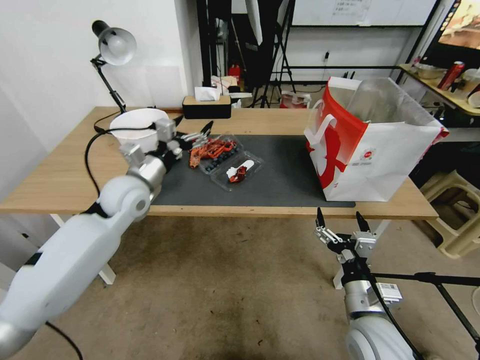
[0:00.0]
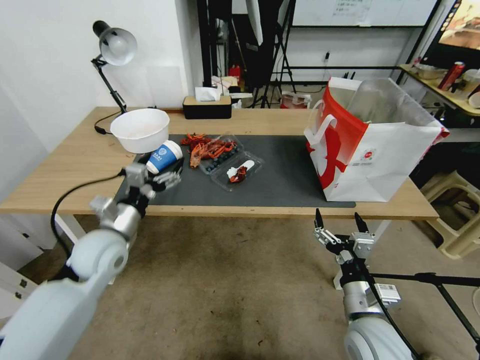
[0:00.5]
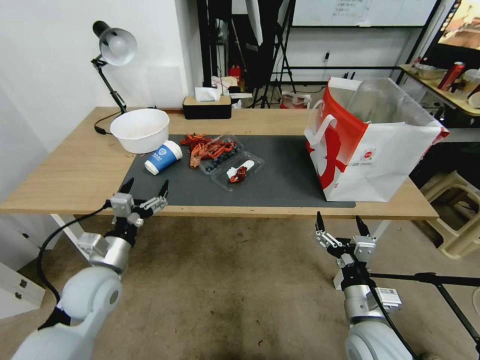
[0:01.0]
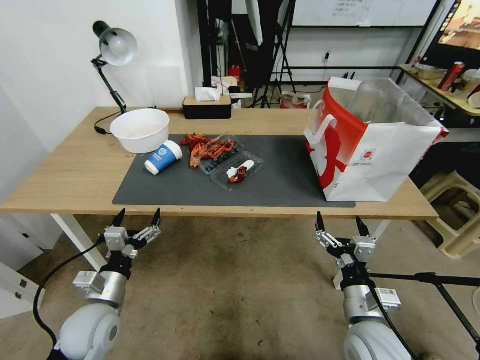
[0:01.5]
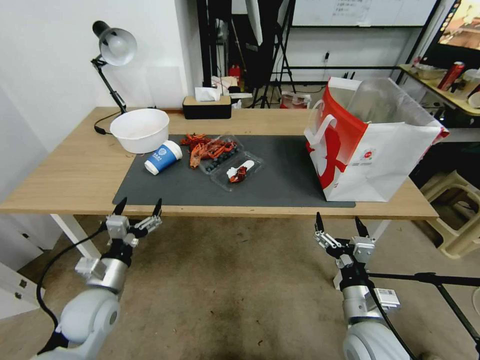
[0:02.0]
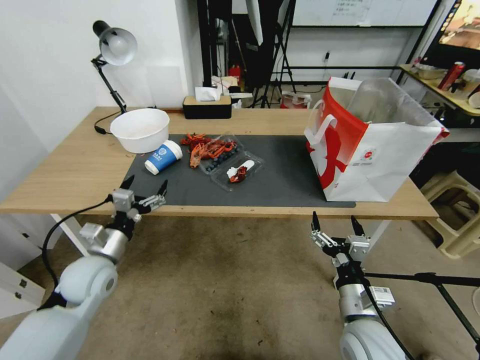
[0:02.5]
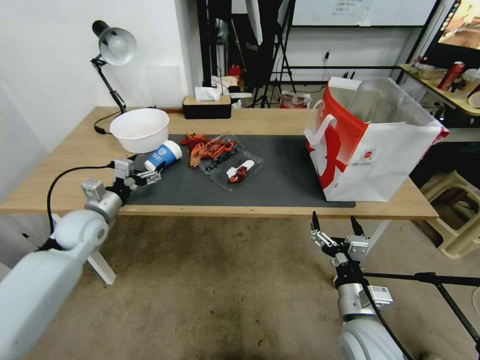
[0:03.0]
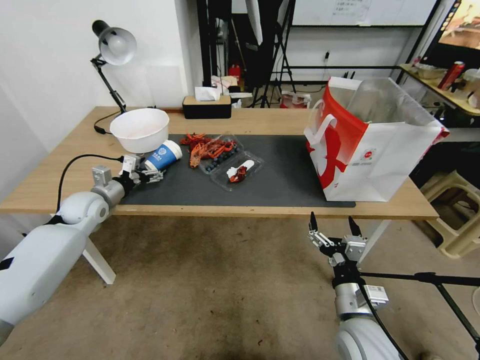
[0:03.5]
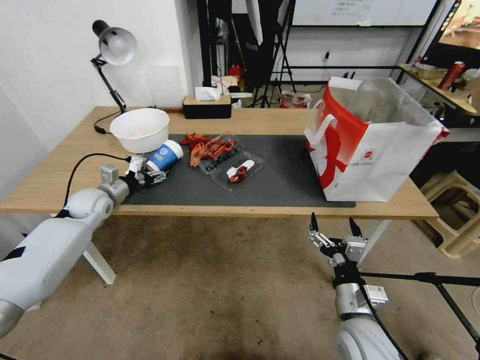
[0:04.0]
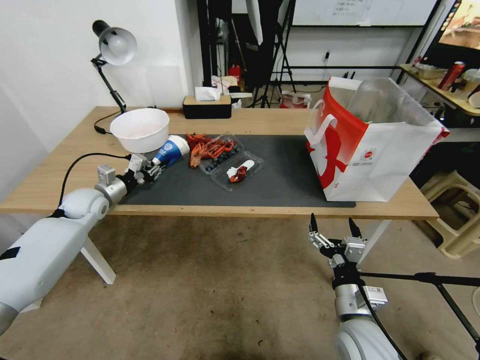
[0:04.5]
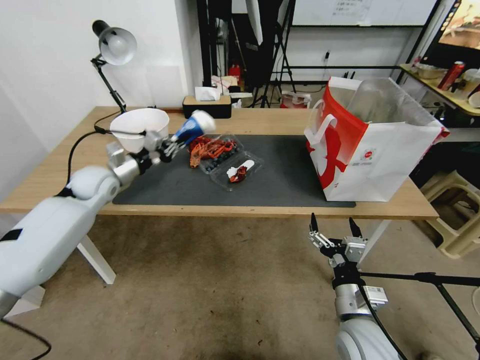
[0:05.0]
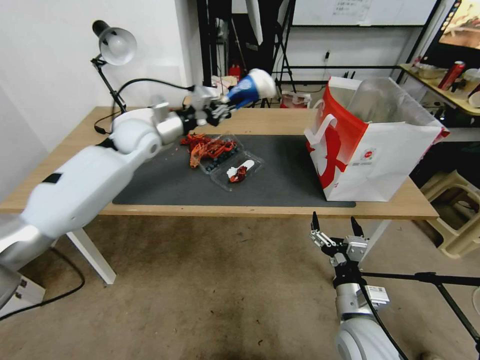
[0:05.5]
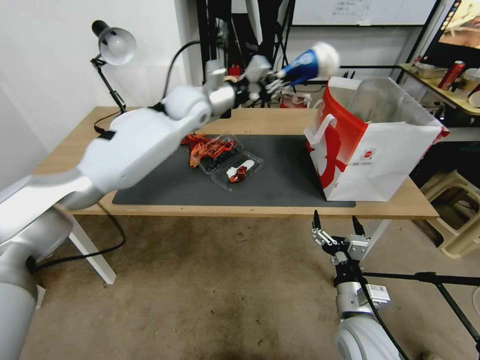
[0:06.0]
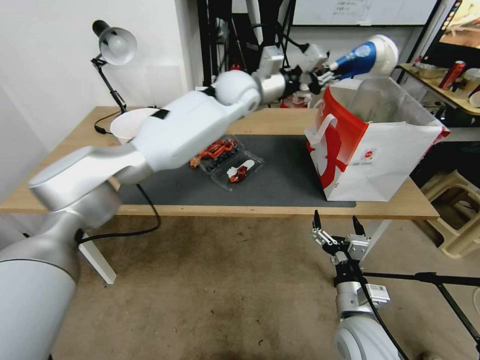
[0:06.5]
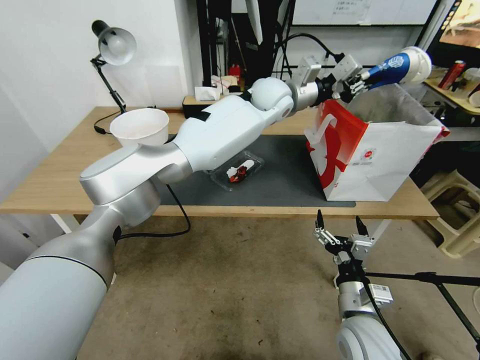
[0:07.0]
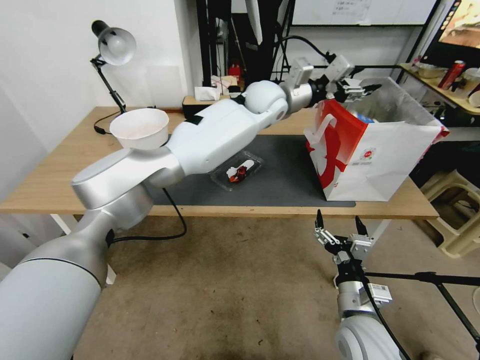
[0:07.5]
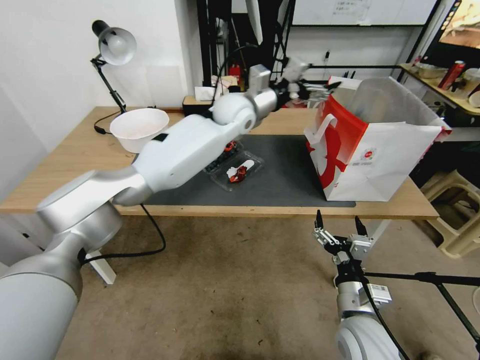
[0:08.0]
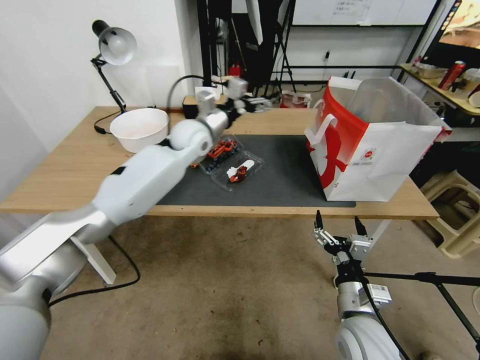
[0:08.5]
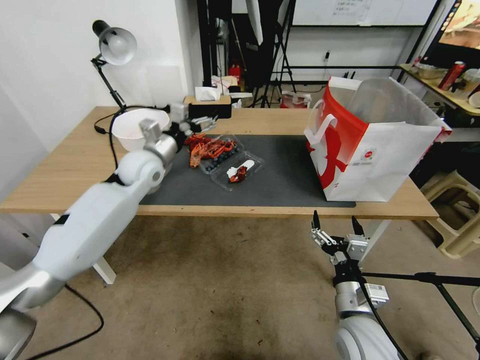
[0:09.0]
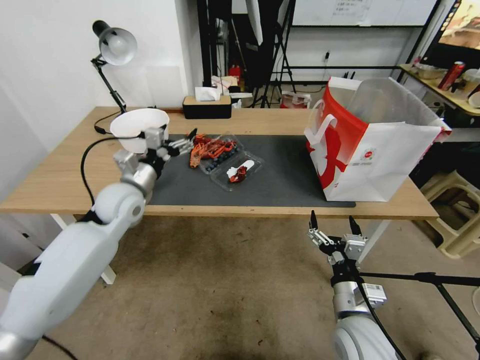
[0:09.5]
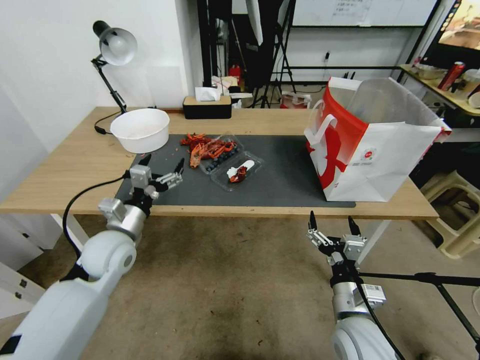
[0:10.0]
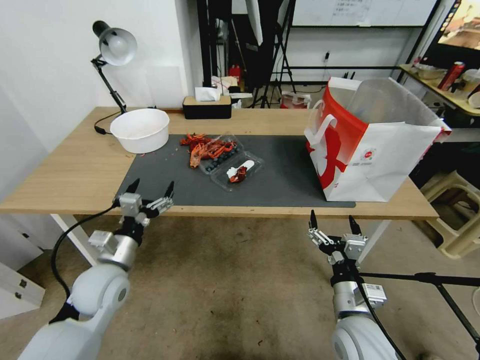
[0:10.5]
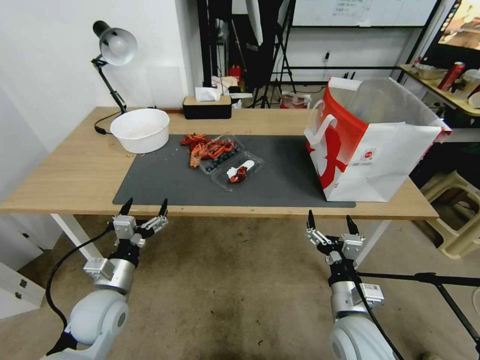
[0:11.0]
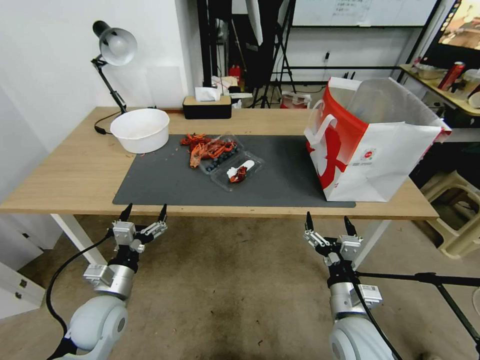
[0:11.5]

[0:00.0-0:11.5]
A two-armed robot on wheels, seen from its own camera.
0:00.0 to 0:02.0: The left gripper is displaced backward and downward by some 25 cm.
0:02.0 to 0:04.0: The left gripper is displaced forward by about 25 cm.
0:04.0 to 0:06.0: The left gripper is displaced to the right and upward by approximately 35 cm, and closes its fingers.
0:06.0 to 0:07.5: The left gripper moves to the right, some 15 cm, and opens.
0:07.5 to 0:09.5: The left gripper heads to the left, backward and downward, covering some 40 cm, and opens its fingers.
0:09.5 to 0:11.5: The left gripper heads backward and downward, covering roughly 25 cm.

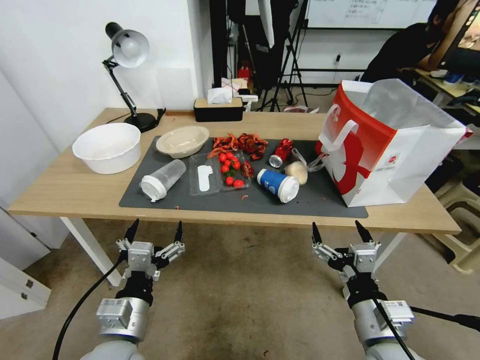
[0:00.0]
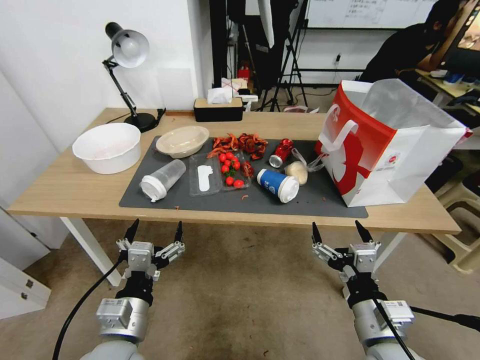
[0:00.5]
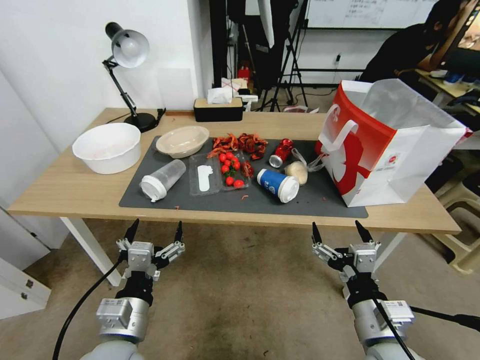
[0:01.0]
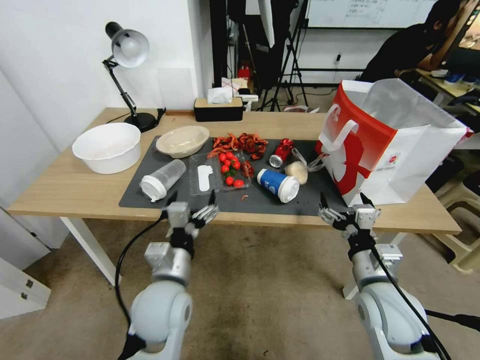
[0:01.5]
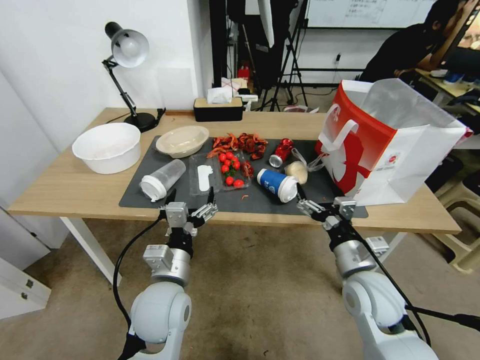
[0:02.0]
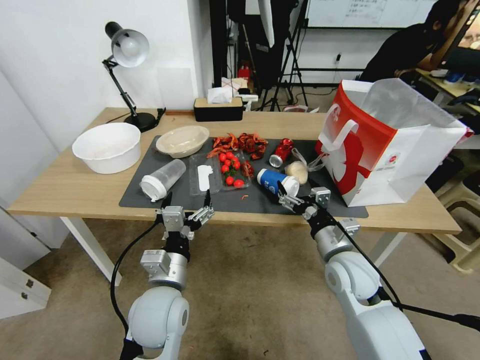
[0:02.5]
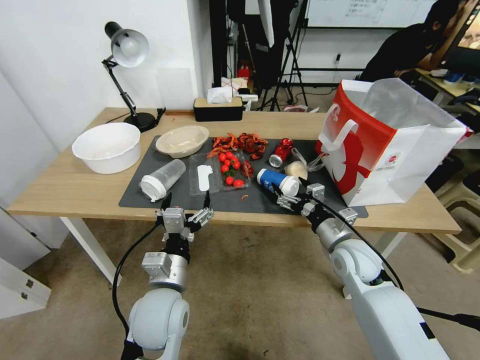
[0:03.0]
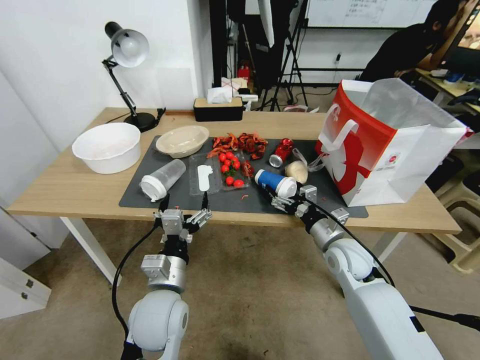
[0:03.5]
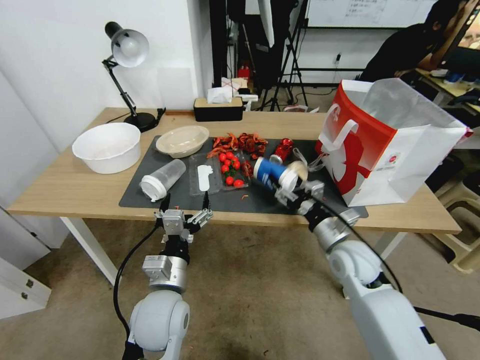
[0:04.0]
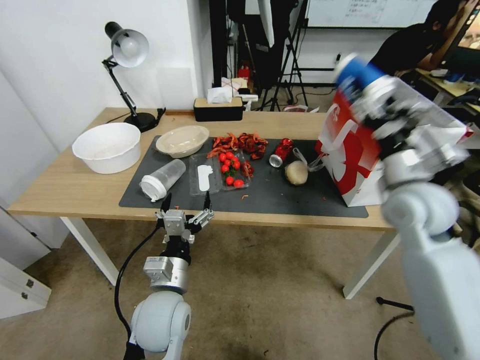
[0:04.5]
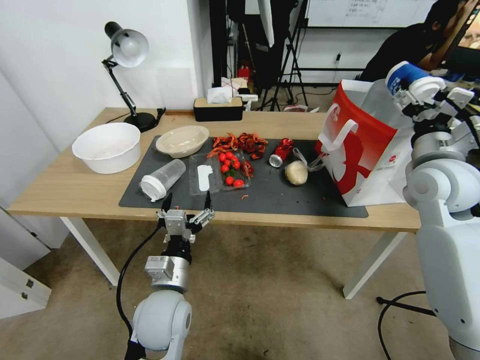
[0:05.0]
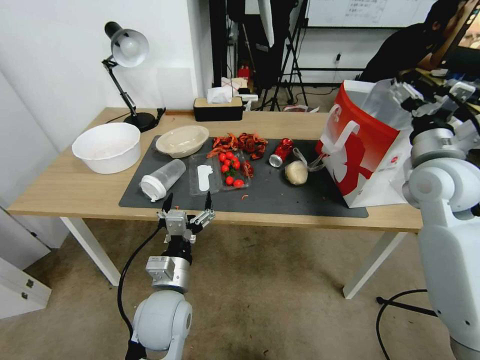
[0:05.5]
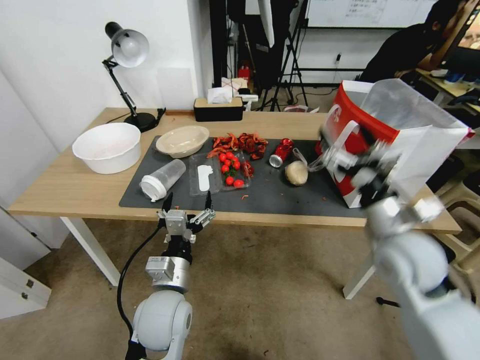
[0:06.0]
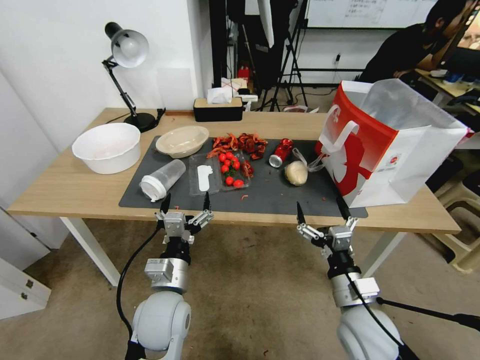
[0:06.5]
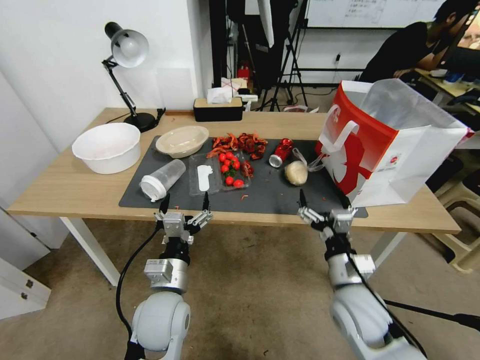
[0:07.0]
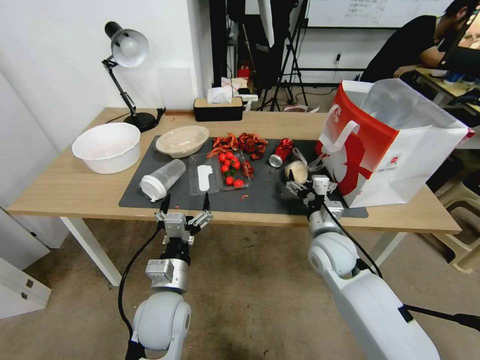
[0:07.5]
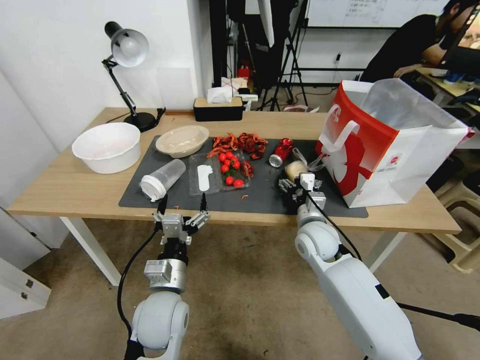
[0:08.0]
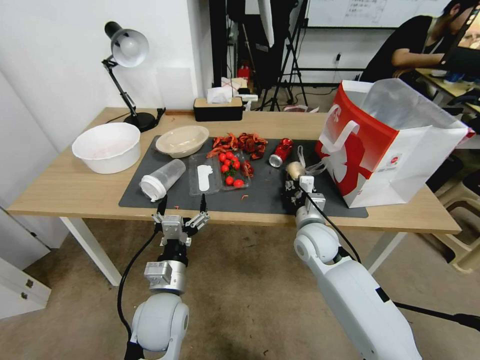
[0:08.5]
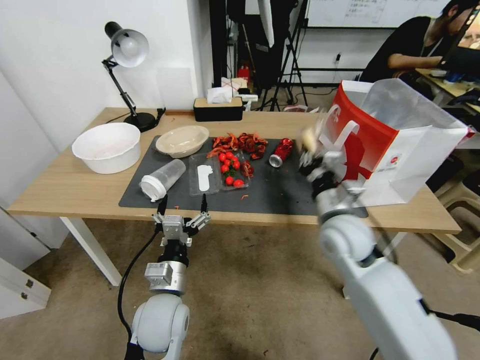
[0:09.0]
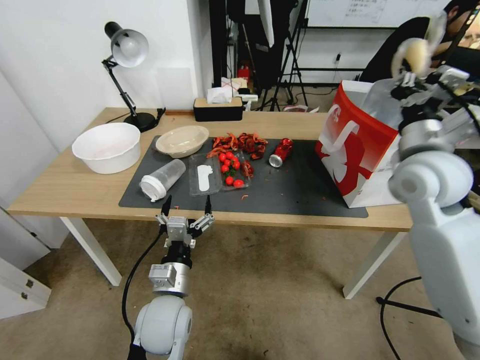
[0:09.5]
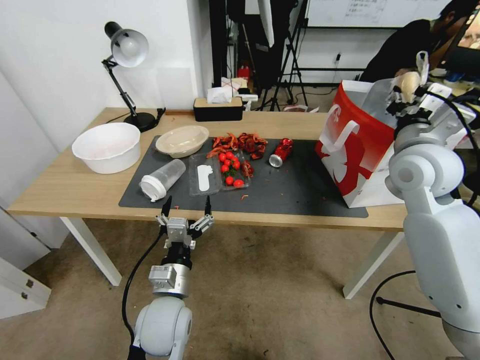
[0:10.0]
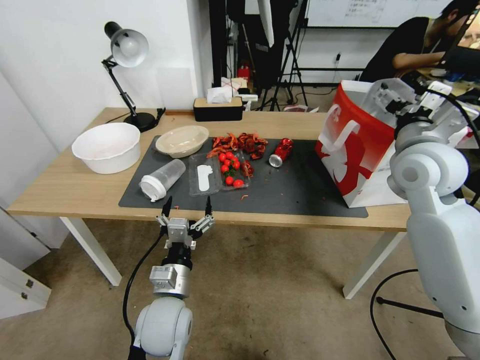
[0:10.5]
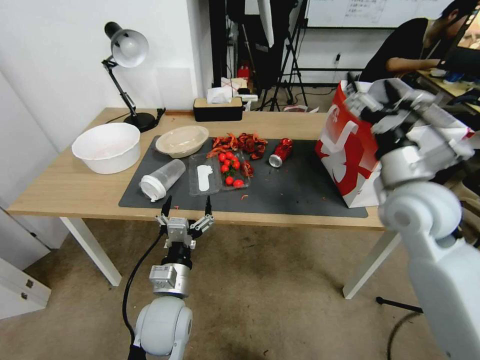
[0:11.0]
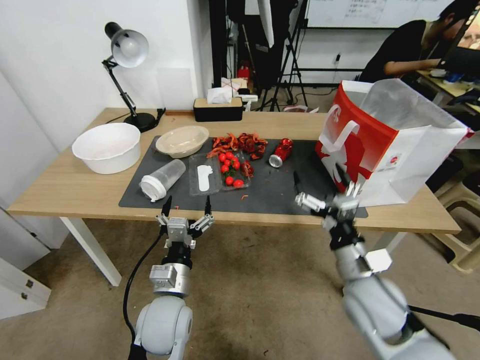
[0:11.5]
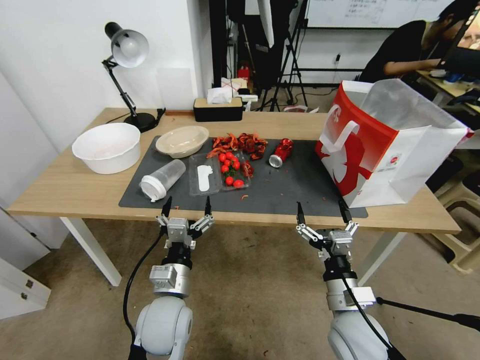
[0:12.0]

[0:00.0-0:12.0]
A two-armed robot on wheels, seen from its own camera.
0:02.0 to 0:04.0: The right gripper goes approximately 10 cm forward, and closes.
0:04.0 to 0:06.0: The right gripper travels upward by some 10 cm, and opens up.
0:06.0 to 0:08.0: The right gripper shifts roughly 20 cm downward, to the left and forward.
0:08.0 to 0:10.0: The right gripper moves upward and to the right, about 25 cm, and closes its fingers.
0:10.0 to 0:12.0: The right gripper travels downward and backward by roughly 35 cm, and opens its fingers.

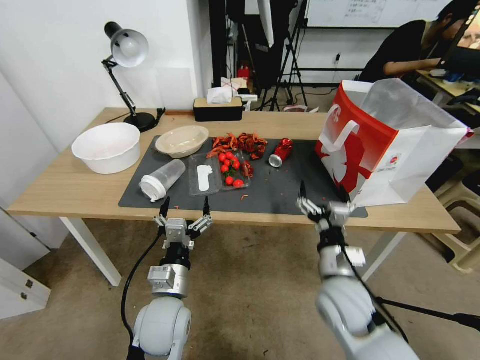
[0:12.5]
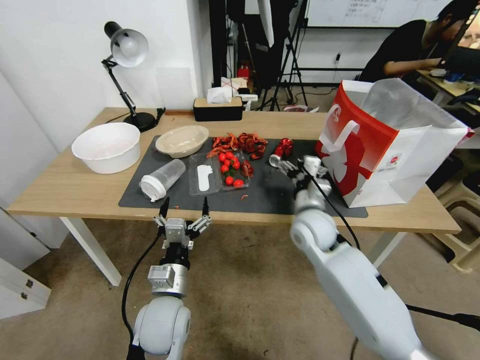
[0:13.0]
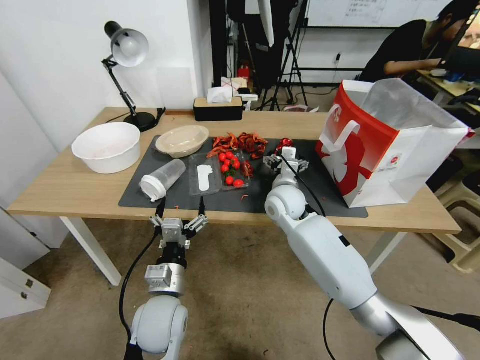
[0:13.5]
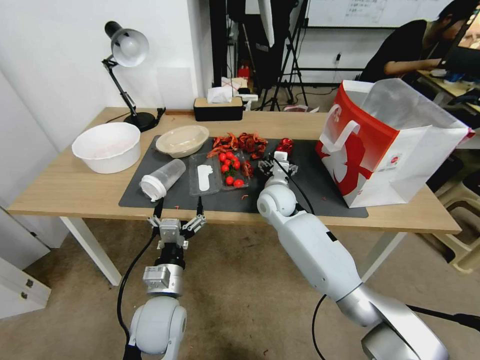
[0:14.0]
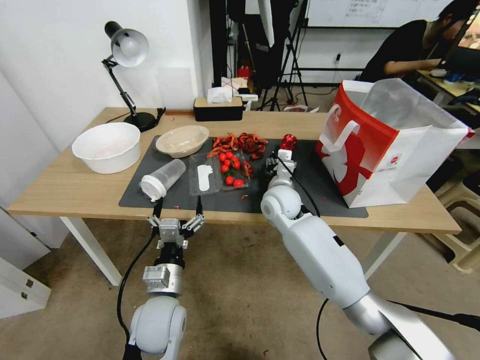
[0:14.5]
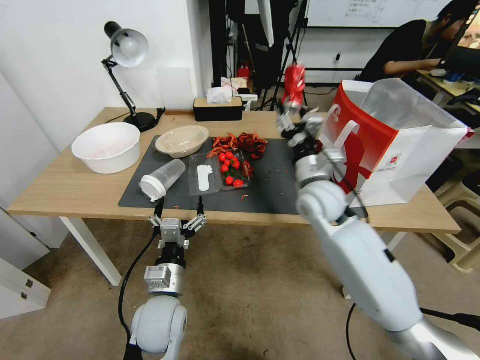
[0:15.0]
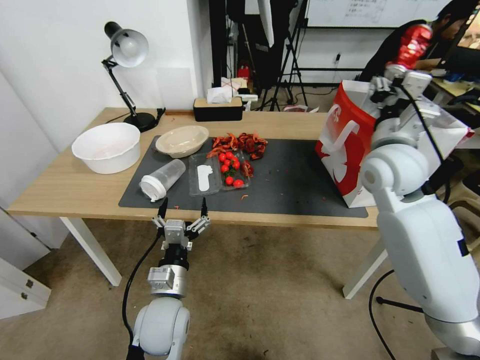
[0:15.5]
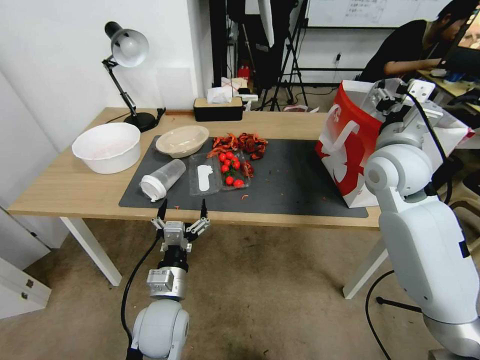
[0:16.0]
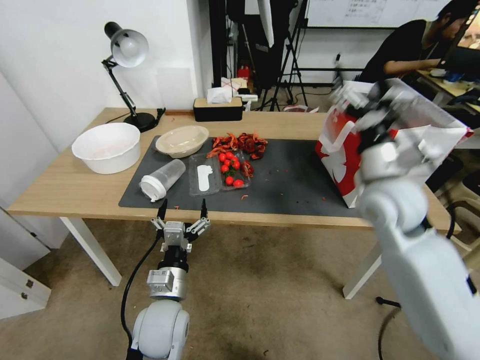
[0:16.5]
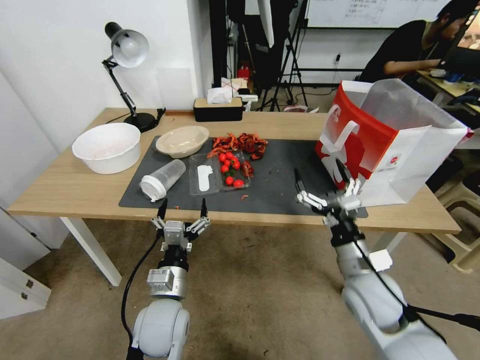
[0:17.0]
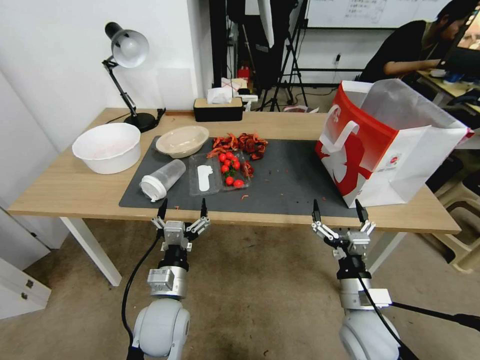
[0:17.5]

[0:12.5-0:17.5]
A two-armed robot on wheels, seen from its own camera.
0:12.5 to 0:15.0: The right gripper shifts approximately 20 cm forward, and closes.
0:15.0 to 0:17.5: The right gripper goes about 30 cm backward, downward and to the right, and opens.
